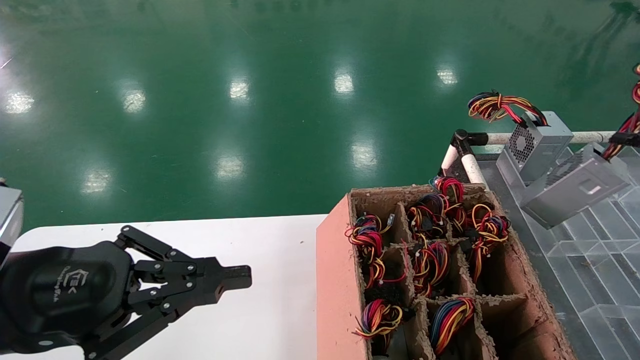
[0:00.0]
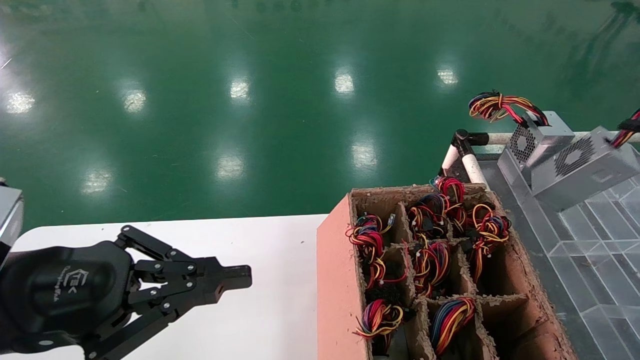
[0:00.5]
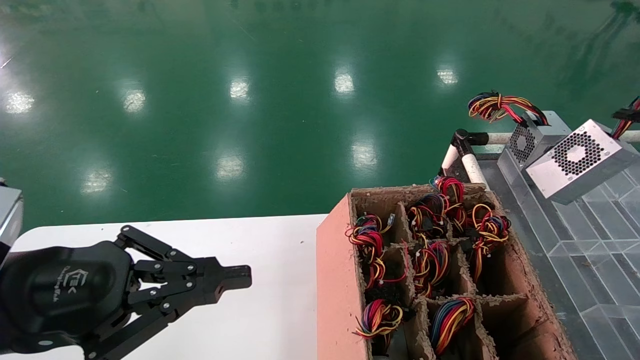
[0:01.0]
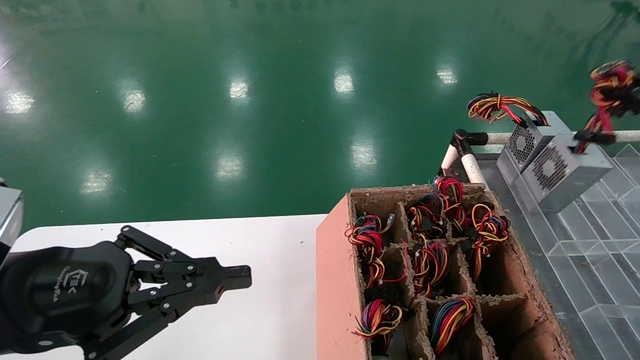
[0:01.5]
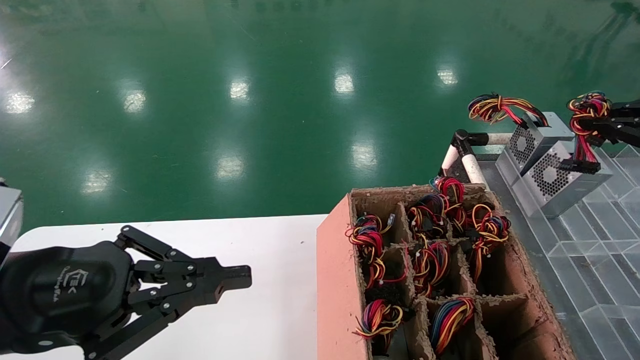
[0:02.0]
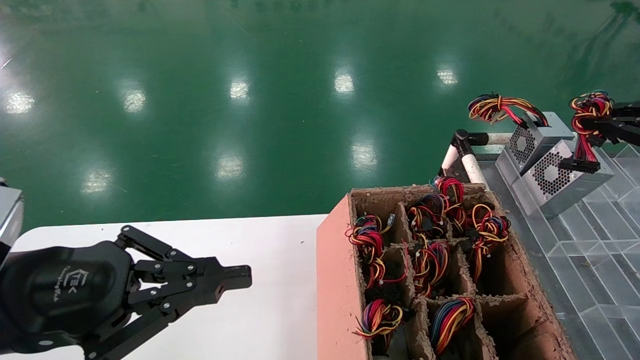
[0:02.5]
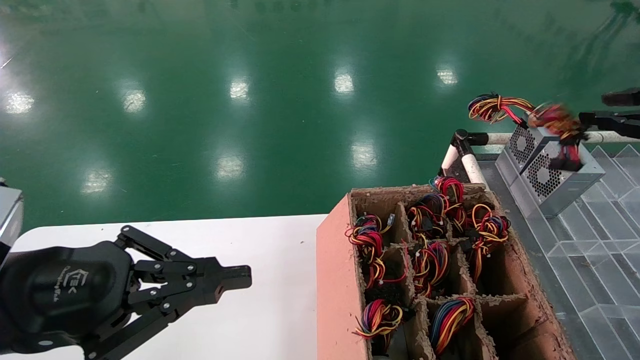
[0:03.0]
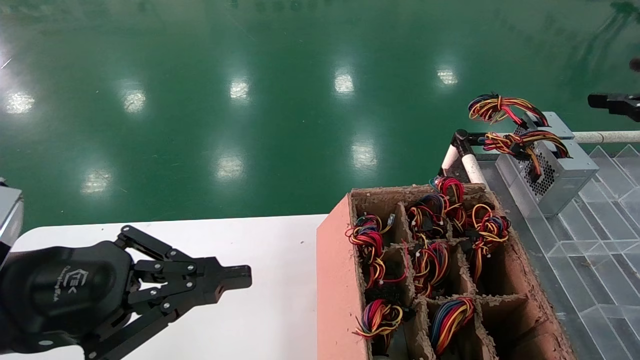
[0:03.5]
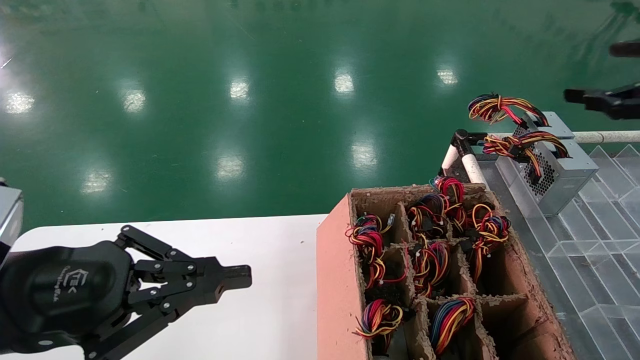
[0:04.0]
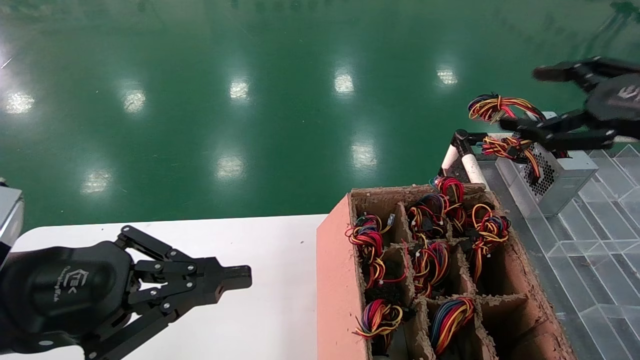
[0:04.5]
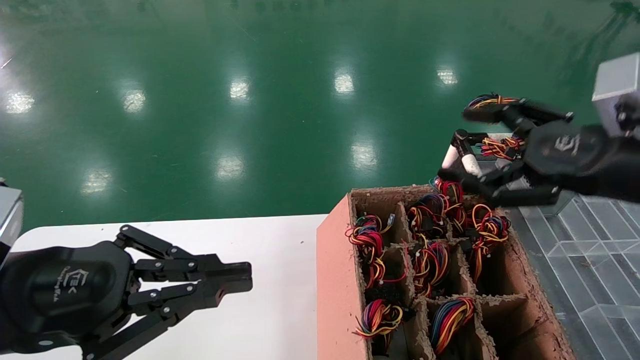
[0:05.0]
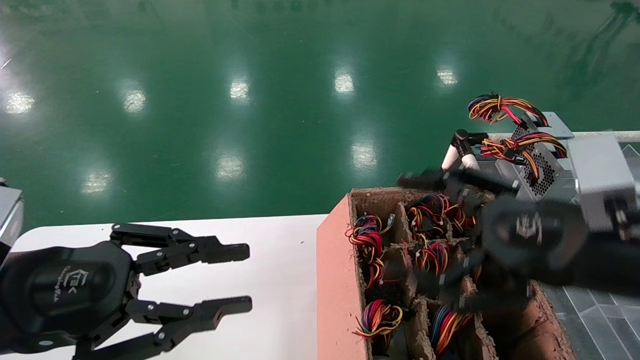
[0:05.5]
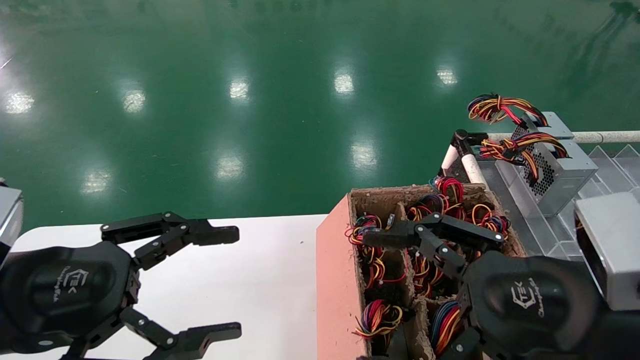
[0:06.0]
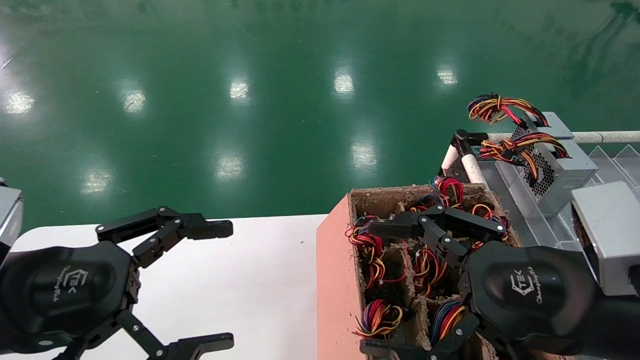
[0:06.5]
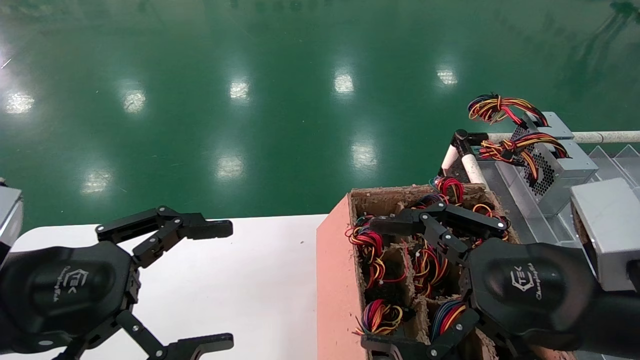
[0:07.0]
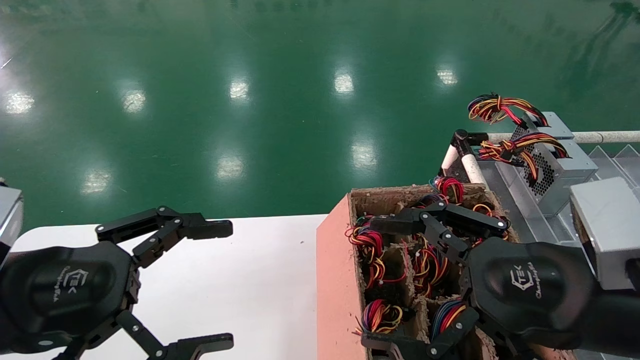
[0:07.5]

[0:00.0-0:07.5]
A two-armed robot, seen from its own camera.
Step, 0:00.0 to 0:02.5: Place the main unit power supply in the designated area.
0:00.0 to 0:02.0: The right gripper moves forward, about 5 cm.
0:02.0 to 0:04.0: The right gripper opens.
0:04.0 to 0:05.5: The right gripper shifts roughly 25 cm to the left and downward.
0:05.5 to 0:07.5: The left gripper opens up.
